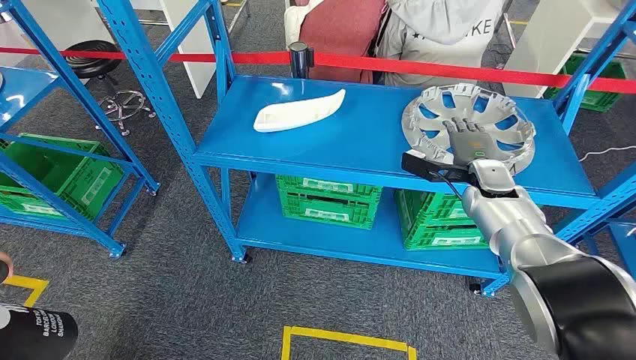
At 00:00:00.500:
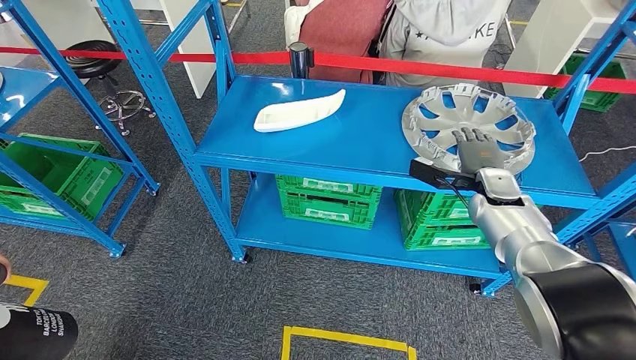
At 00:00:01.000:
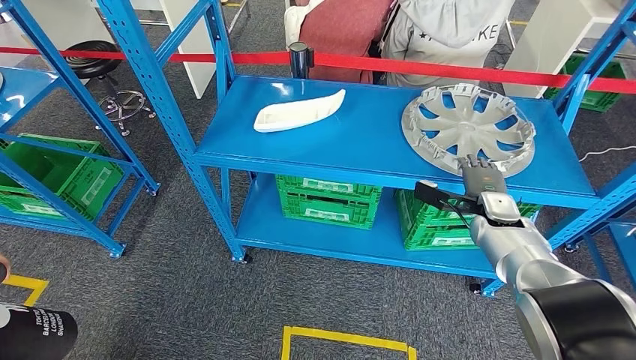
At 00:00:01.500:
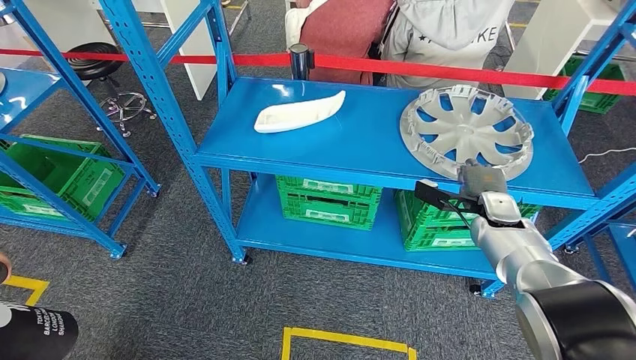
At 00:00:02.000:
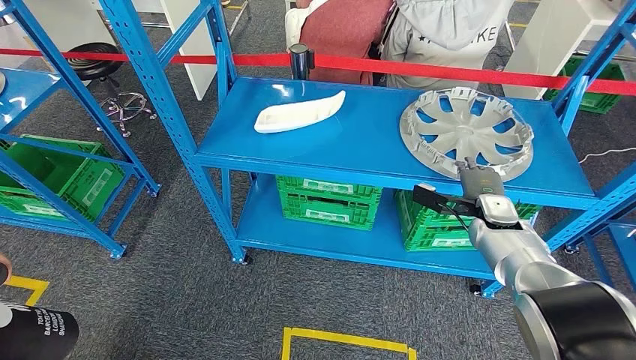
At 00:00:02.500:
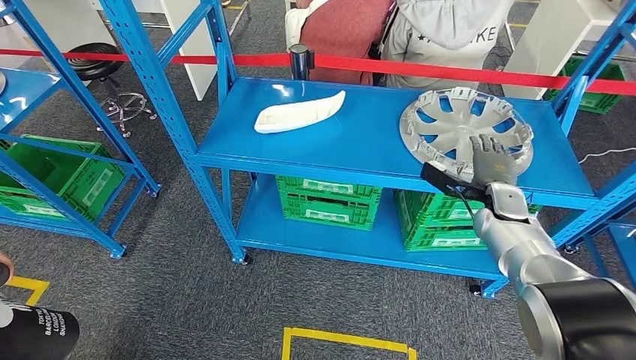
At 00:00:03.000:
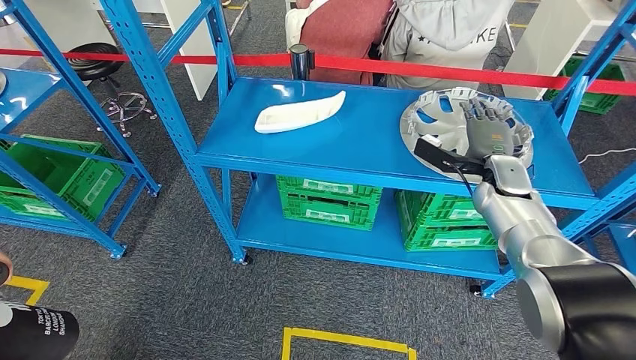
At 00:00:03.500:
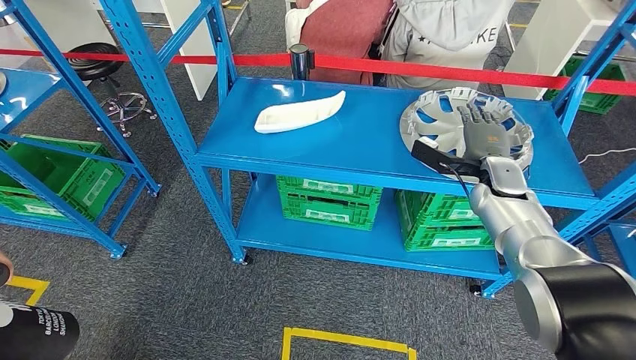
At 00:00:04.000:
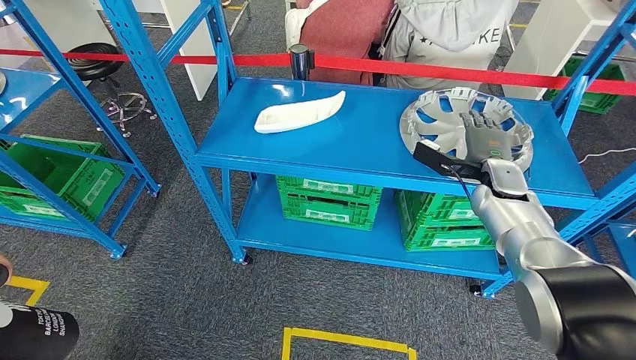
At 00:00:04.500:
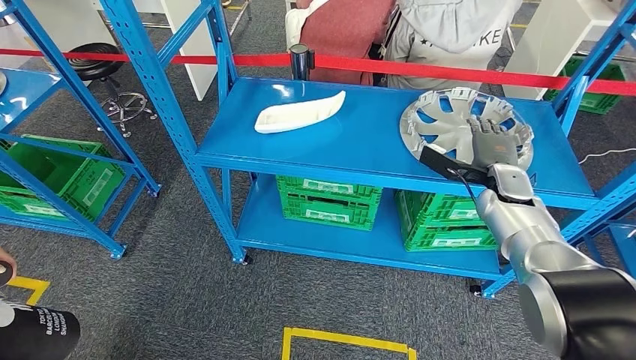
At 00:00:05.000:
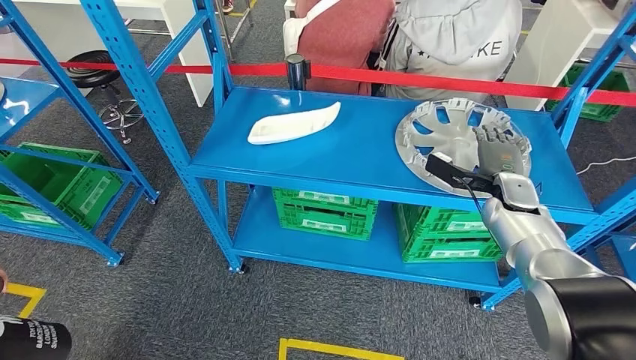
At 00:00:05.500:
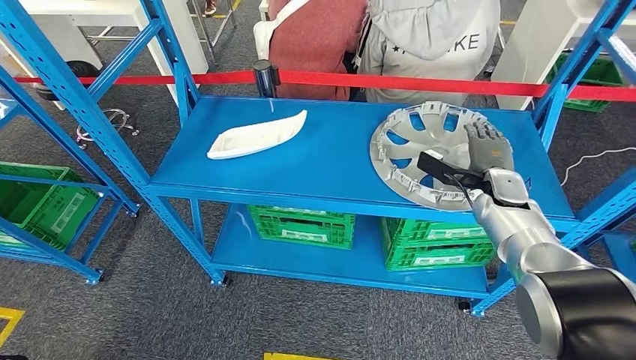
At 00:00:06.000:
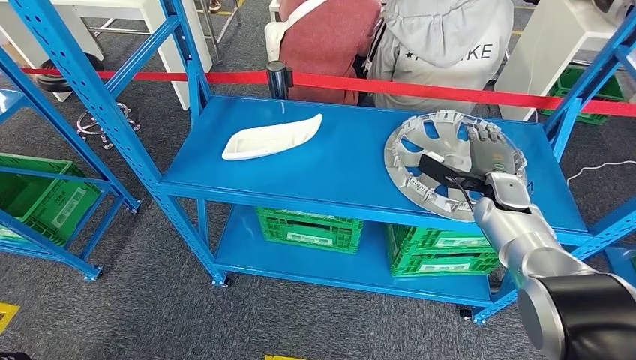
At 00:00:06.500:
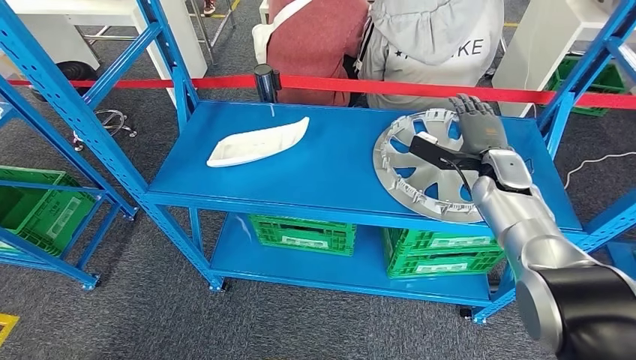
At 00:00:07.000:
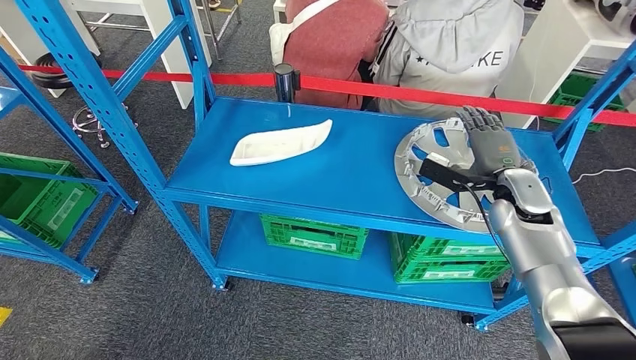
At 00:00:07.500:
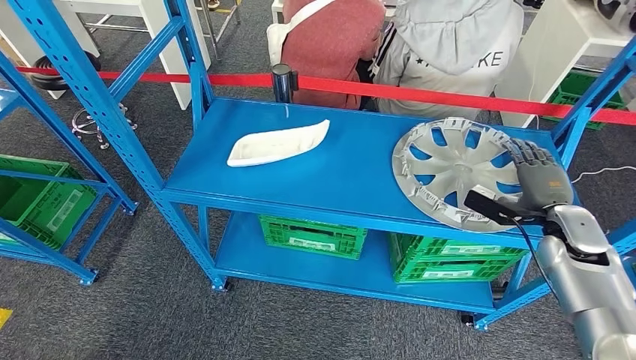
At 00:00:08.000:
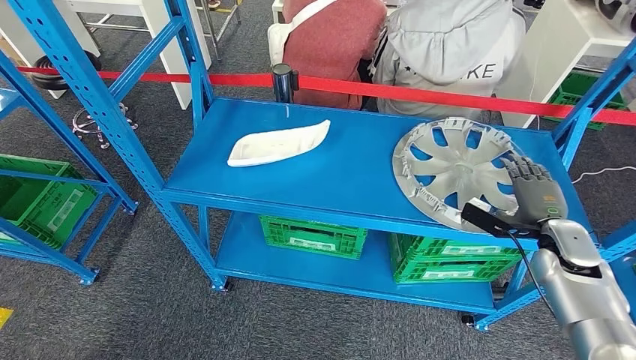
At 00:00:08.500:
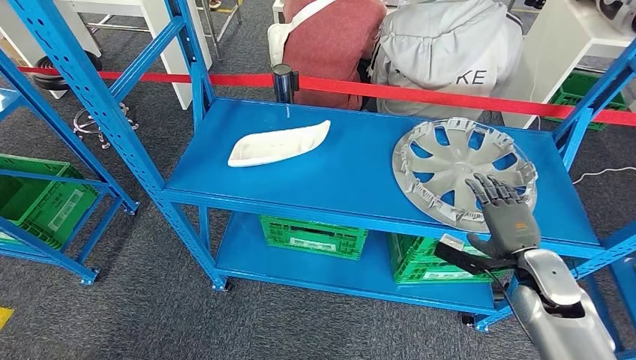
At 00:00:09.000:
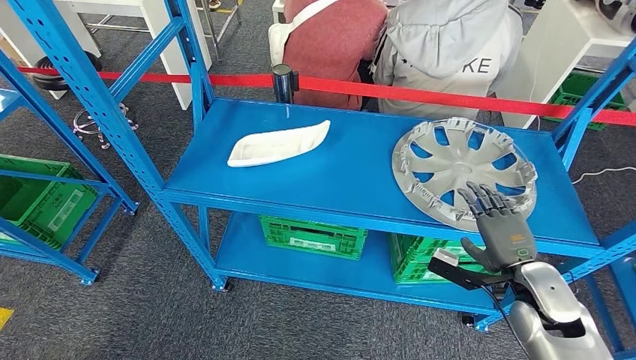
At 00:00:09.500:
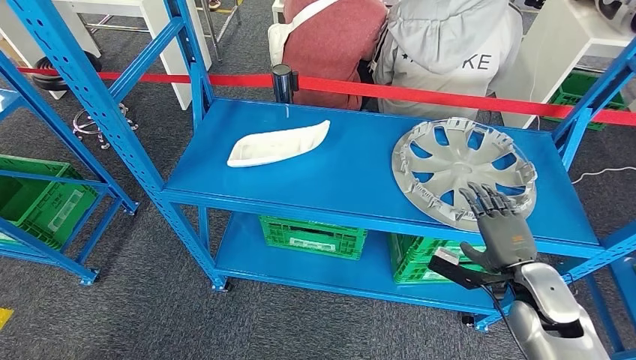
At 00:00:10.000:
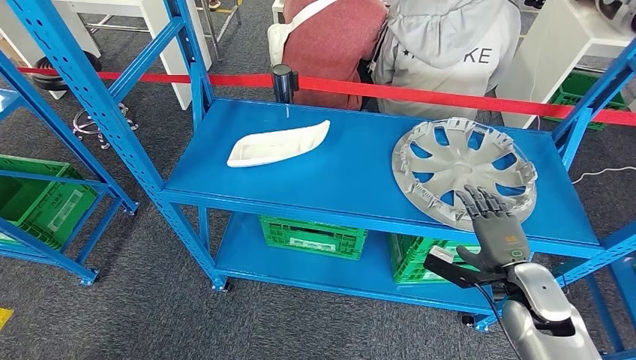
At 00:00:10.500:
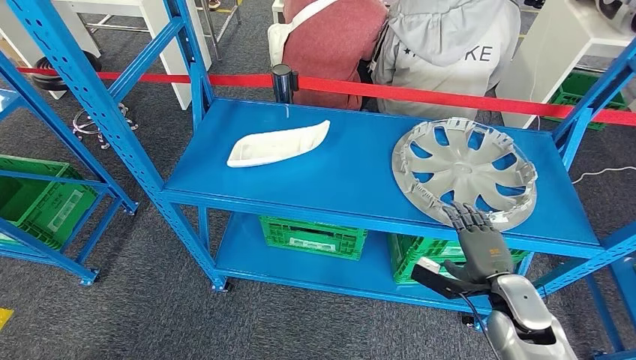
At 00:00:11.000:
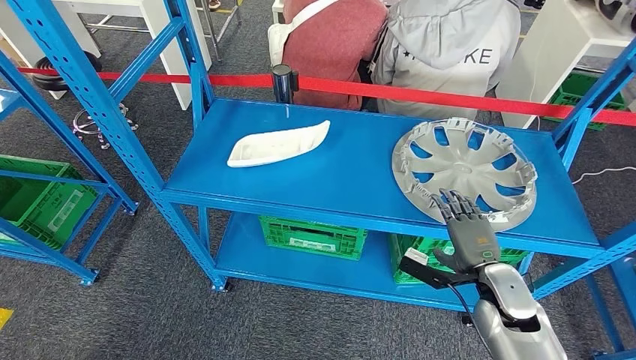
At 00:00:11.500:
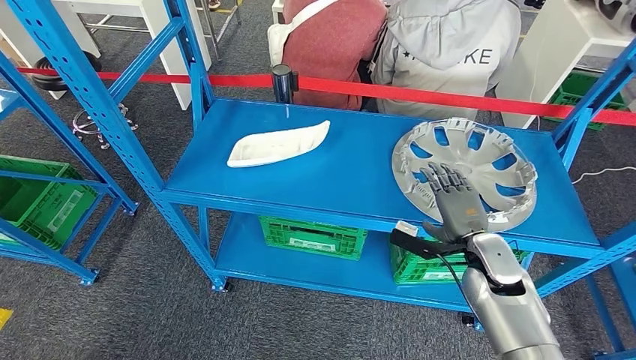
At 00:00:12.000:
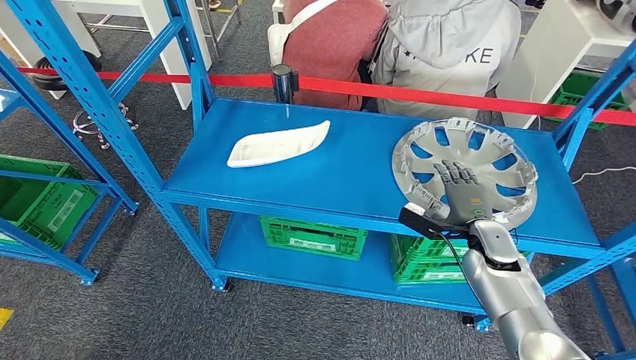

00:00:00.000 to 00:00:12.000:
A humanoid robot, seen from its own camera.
00:00:02.000 to 00:00:04.000: The right hand moves upward, roughly 5 cm.
00:00:08.000 to 00:00:10.000: The right hand travels backward and to the left by roughly 10 cm.
00:00:10.000 to 00:00:12.000: The right hand moves forward, about 10 cm.

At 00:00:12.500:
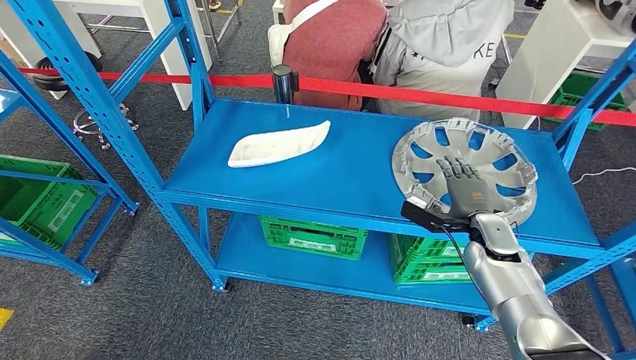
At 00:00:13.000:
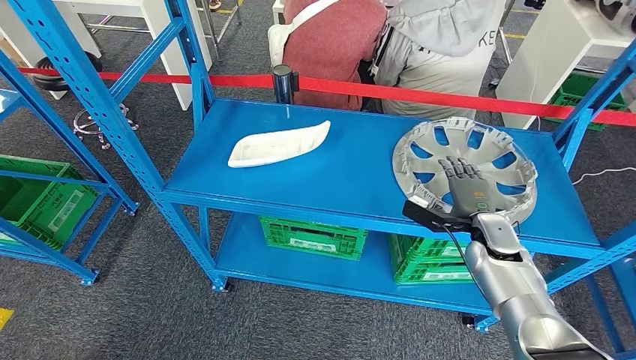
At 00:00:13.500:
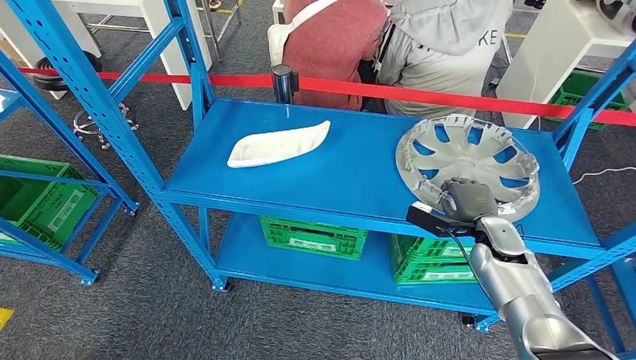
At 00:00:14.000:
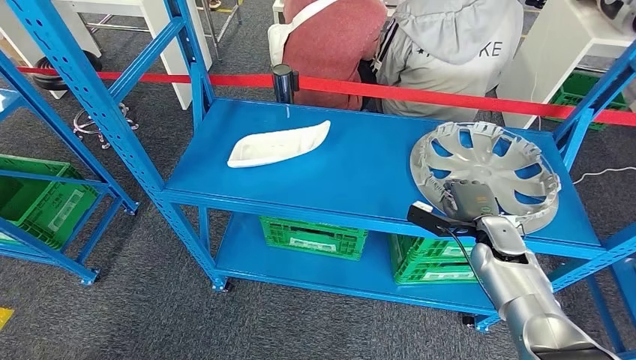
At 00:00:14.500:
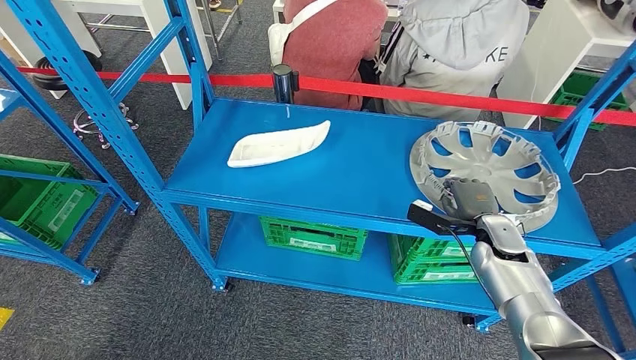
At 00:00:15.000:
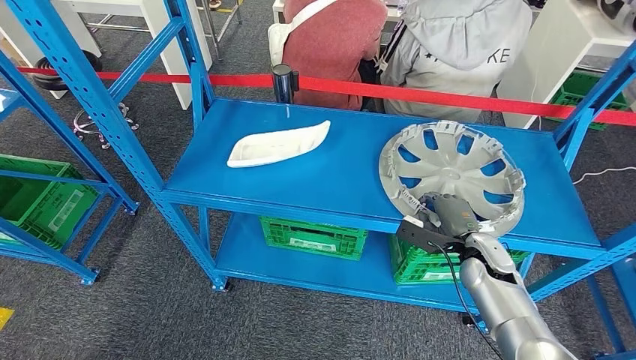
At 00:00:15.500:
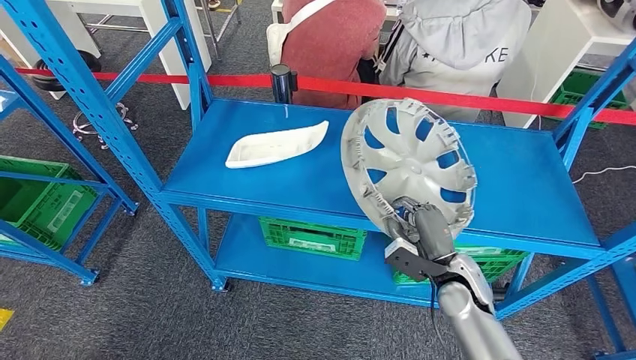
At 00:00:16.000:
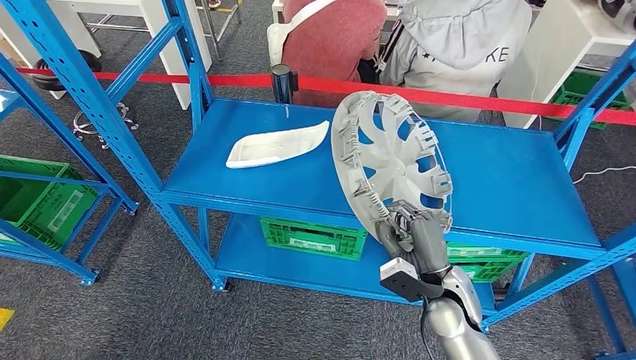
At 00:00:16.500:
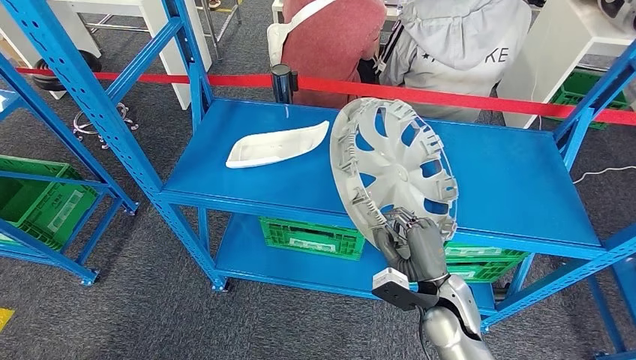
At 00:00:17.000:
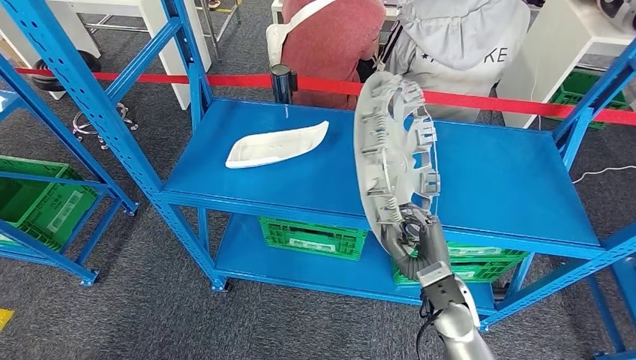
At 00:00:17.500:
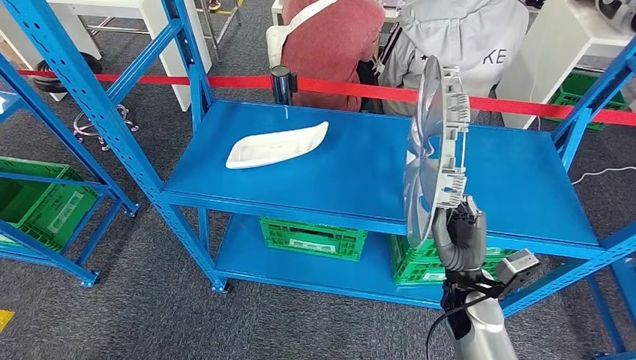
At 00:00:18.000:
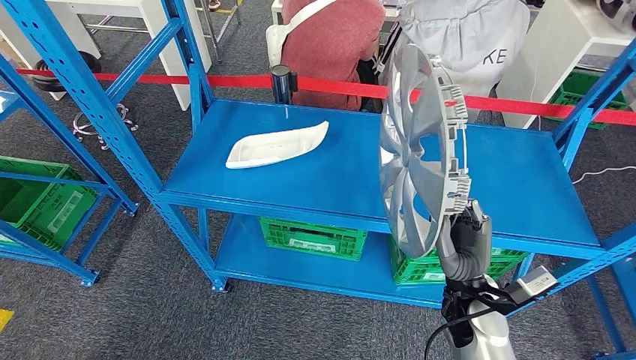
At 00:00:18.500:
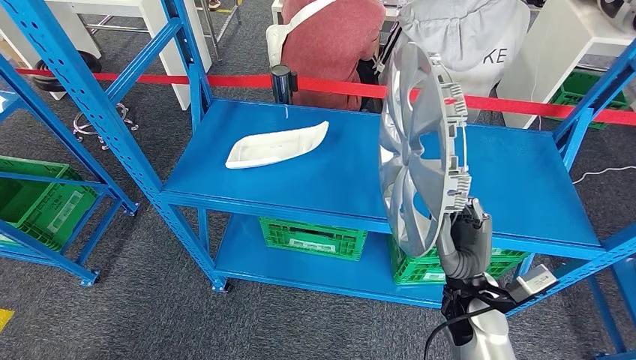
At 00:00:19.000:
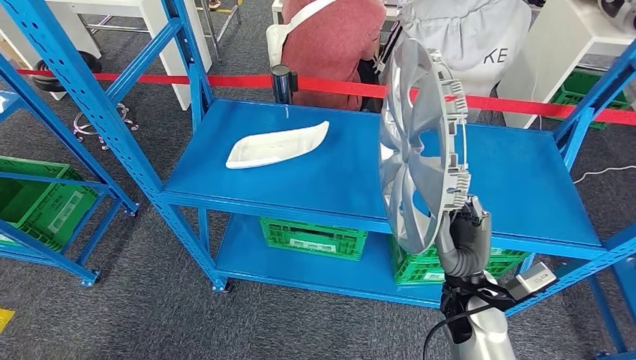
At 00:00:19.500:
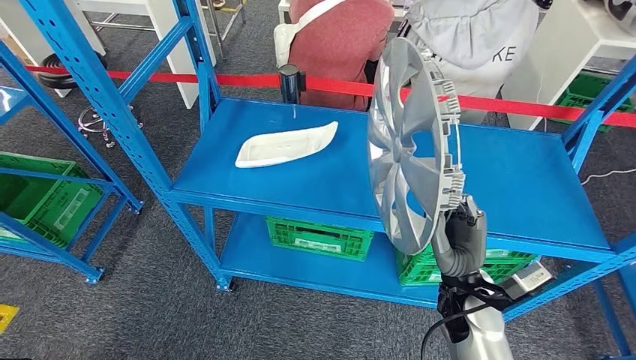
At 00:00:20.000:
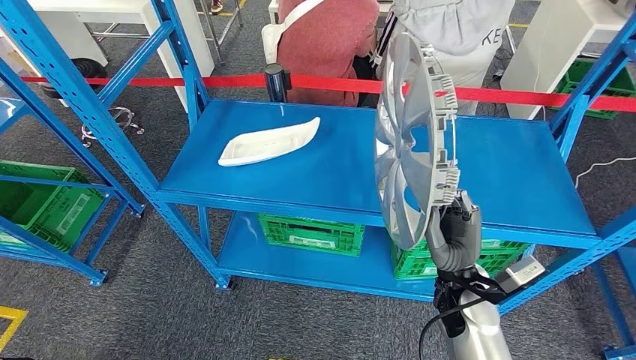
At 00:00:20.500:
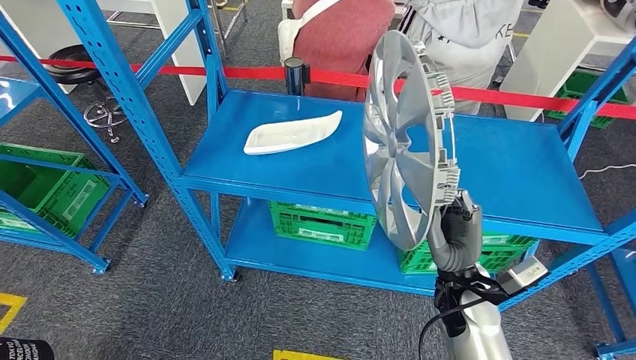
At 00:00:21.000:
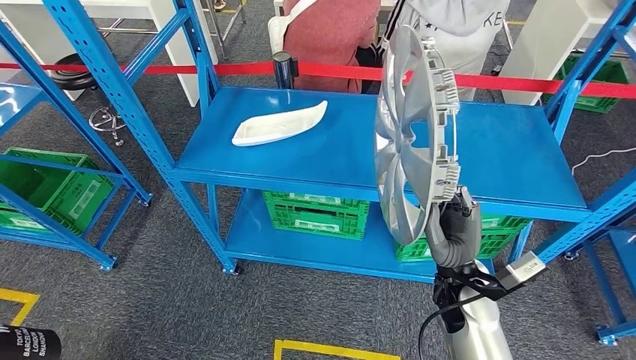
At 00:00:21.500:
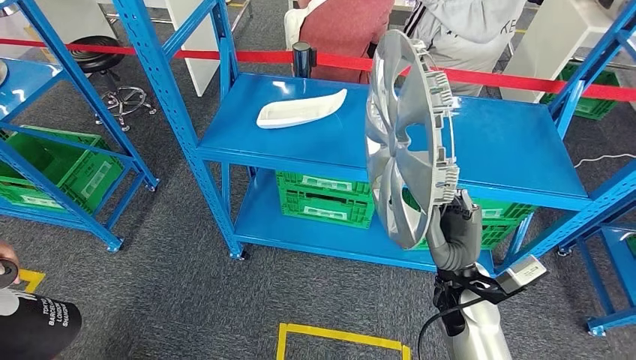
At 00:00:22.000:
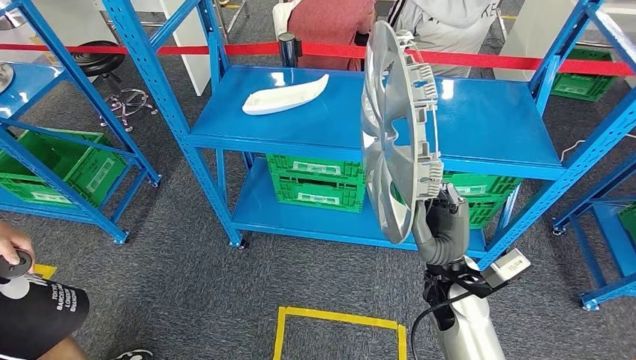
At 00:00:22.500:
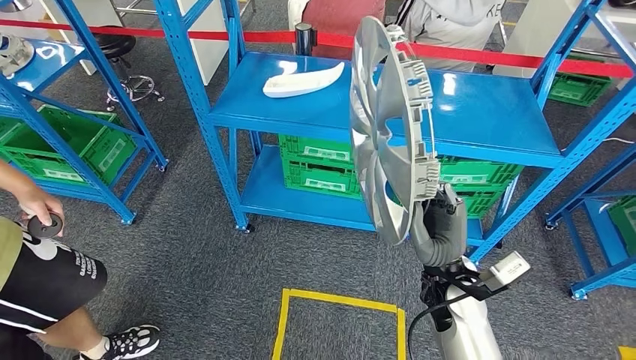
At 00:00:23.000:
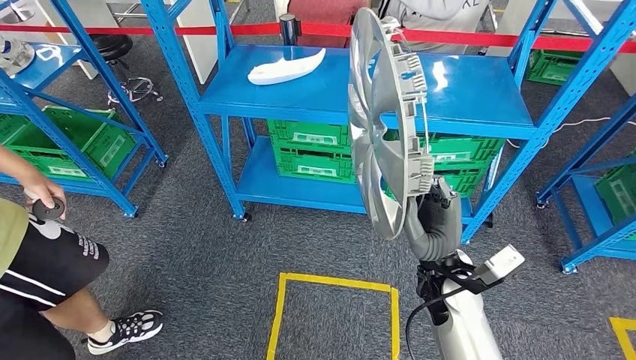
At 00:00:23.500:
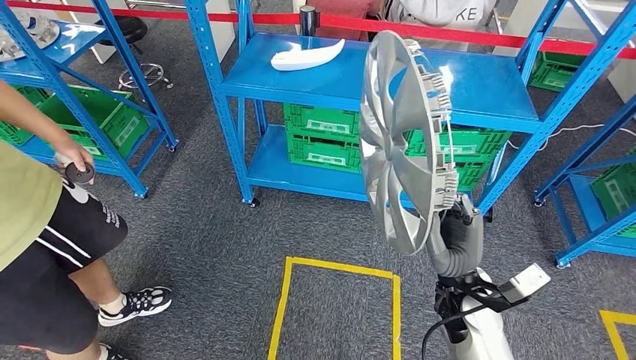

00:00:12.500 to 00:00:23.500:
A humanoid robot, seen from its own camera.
Step, 00:00:12.500 to 00:00:16.000: Pick up the small component from the shelf.
00:00:12.500 to 00:00:14.500: The hands make only small movements.
00:00:14.500 to 00:00:16.000: The right hand travels to the left and backward by approximately 15 cm.
